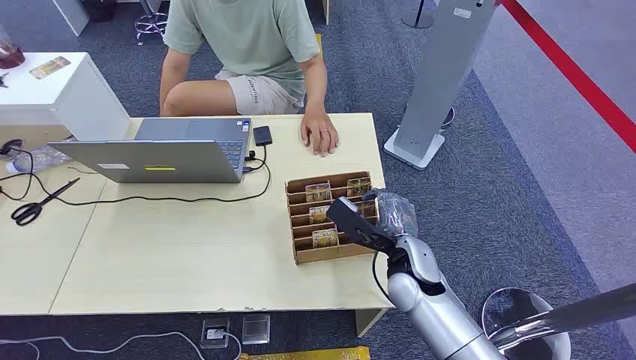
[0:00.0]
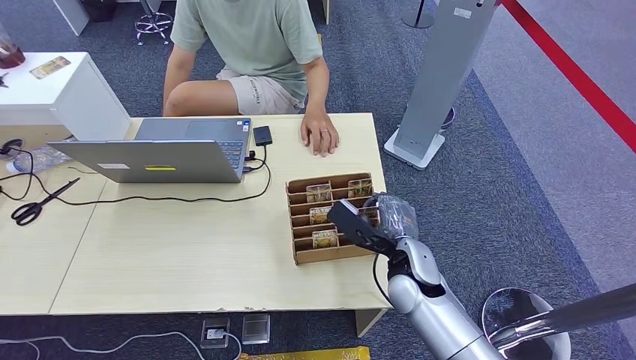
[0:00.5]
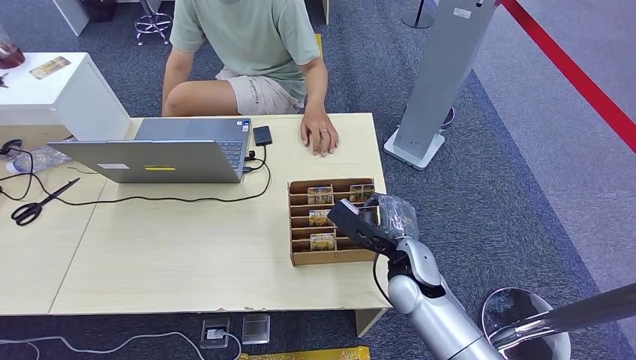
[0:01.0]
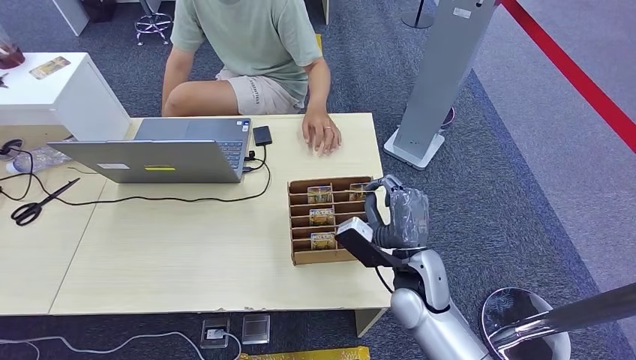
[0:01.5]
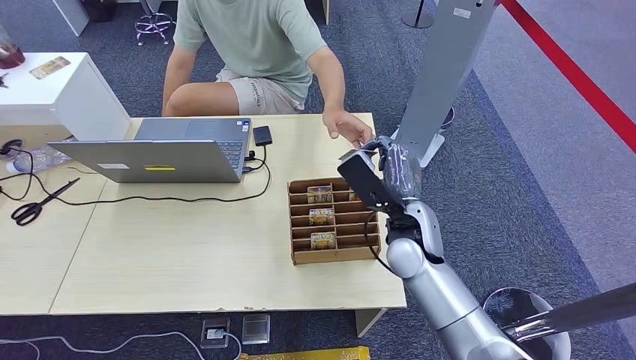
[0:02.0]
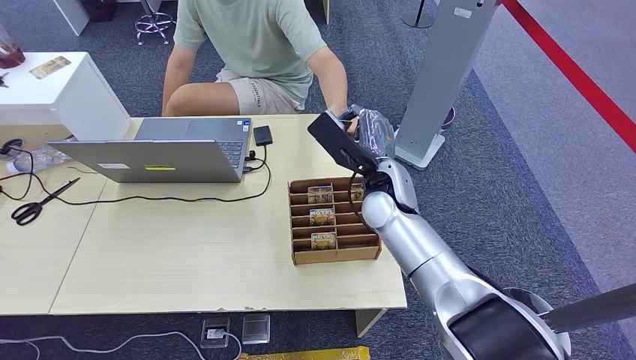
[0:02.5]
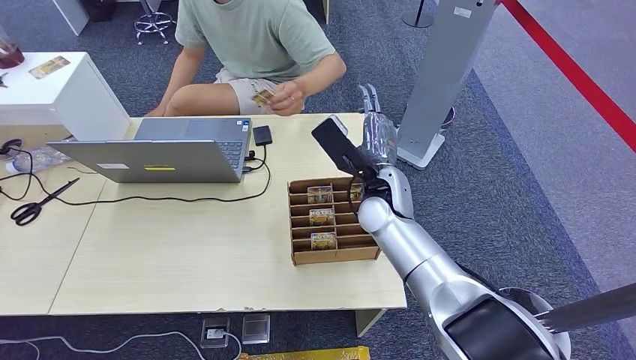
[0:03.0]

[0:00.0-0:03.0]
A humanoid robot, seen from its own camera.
Step, 0:00.0 to 0:01.5: Pick up the key card from the card box.
Step, 0:02.5 to 0:03.0: Hand the key card to the target.
0:01.5 to 0:03.0: The right hand goes about 15 cm forward and upward.
